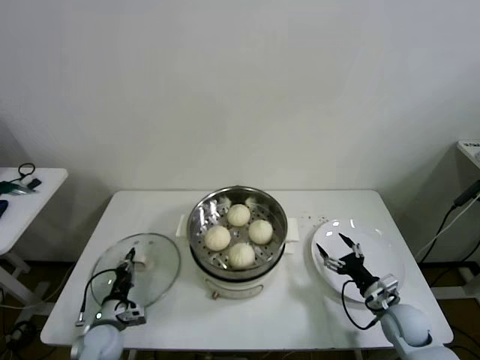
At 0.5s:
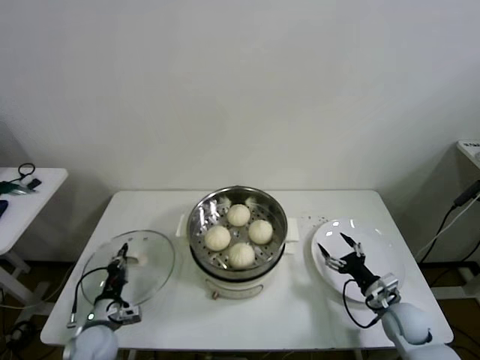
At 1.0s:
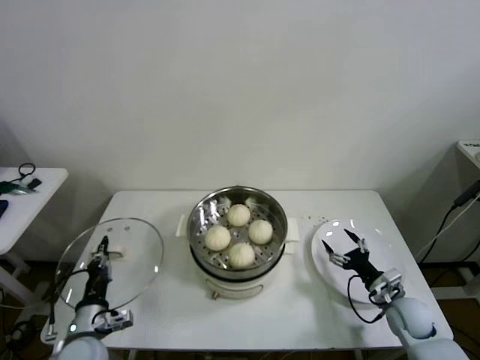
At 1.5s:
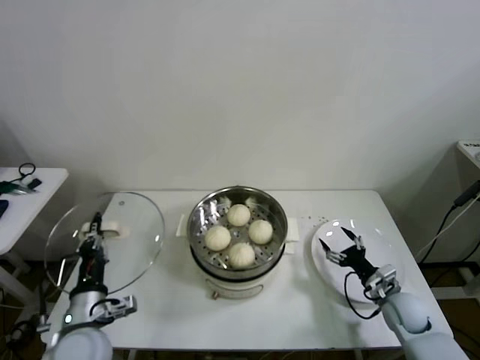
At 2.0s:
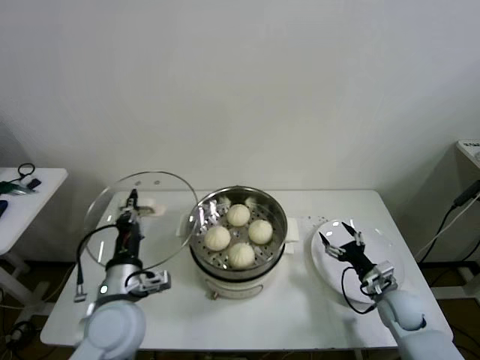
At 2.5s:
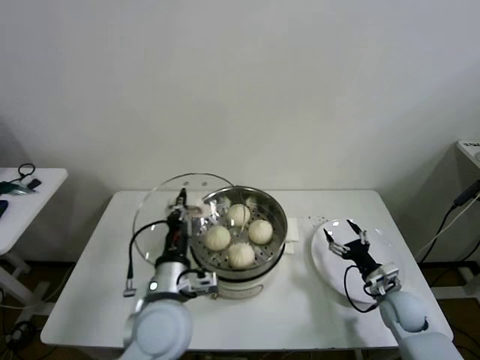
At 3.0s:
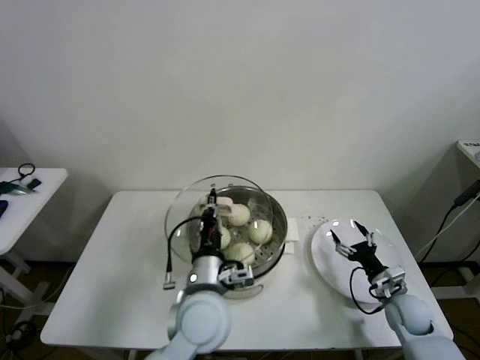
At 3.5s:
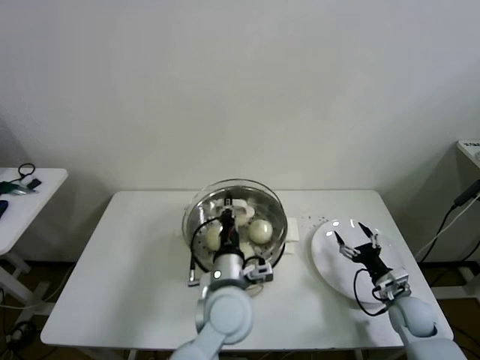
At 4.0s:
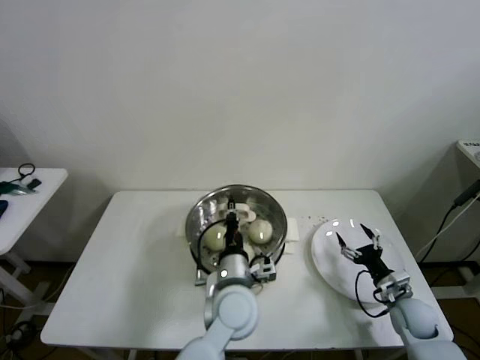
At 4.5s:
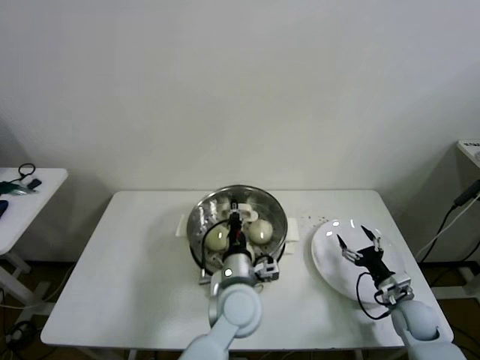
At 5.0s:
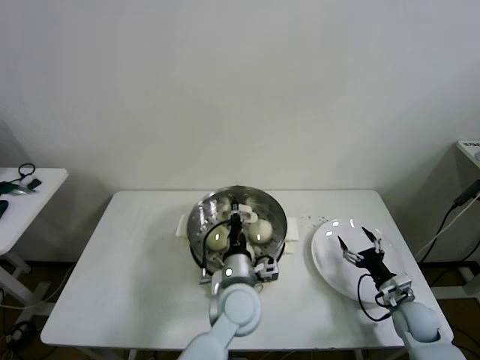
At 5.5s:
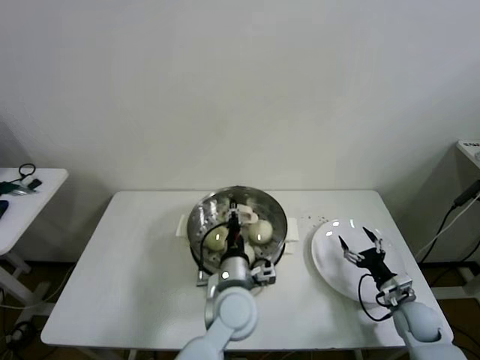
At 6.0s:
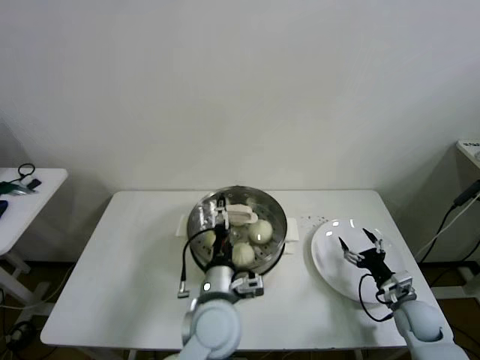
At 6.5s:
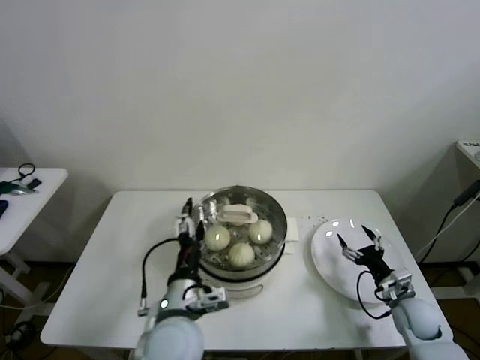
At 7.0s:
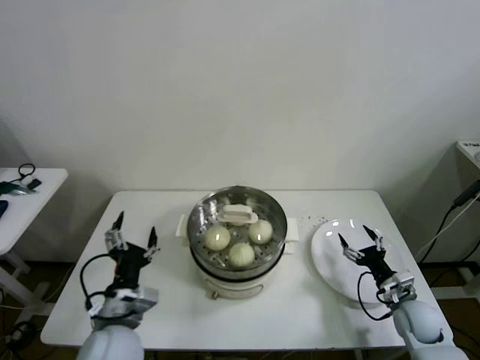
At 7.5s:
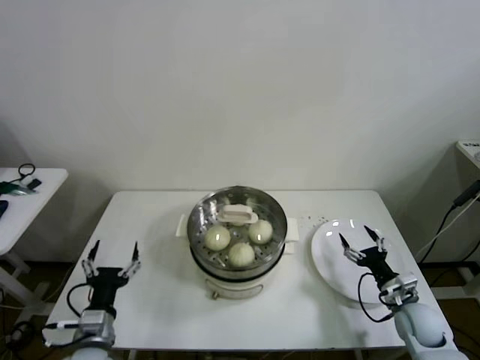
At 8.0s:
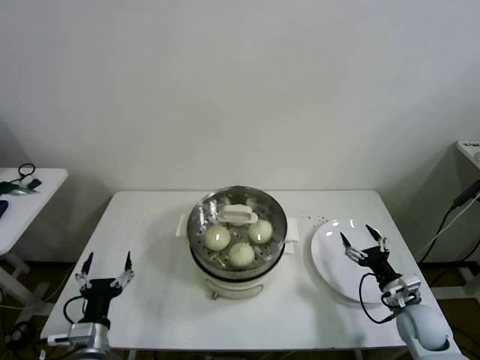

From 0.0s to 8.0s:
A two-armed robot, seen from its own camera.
Step, from 0.5s to 5.5s: Place the pot lid on the steamer with left gripper.
From 0.0s to 2.0s: The left gripper heads upward and to the right, covering about 25 cm.
From 2.0s to 4.0s: The left gripper heads to the right, covering approximately 20 cm.
From 4.0s to 6.0s: The left gripper opens.
From 6.0s to 8.0s: The left gripper is displaced to the left by approximately 25 cm.

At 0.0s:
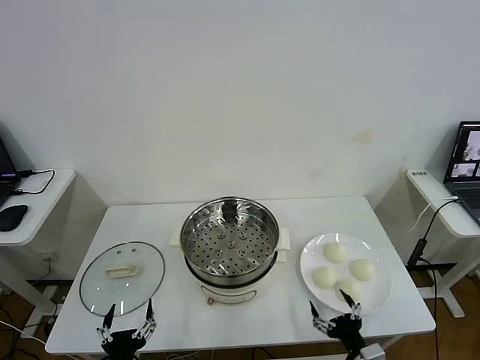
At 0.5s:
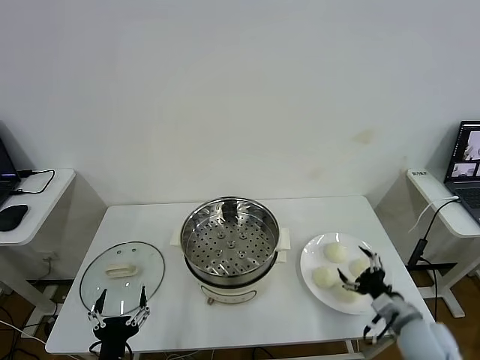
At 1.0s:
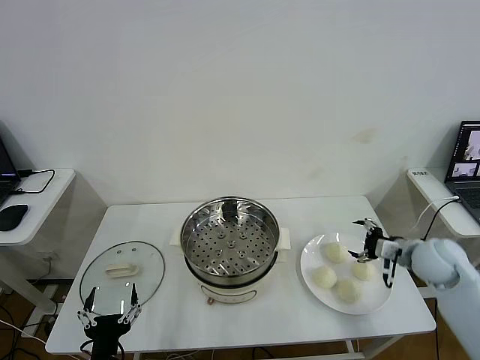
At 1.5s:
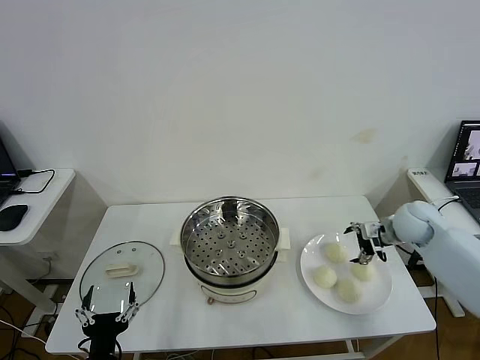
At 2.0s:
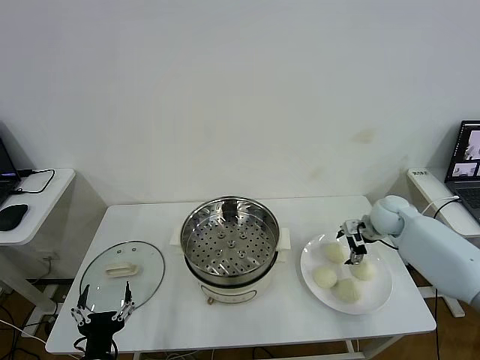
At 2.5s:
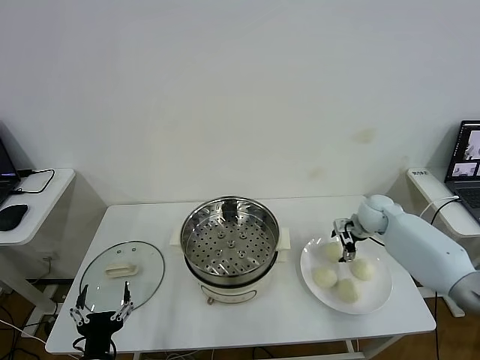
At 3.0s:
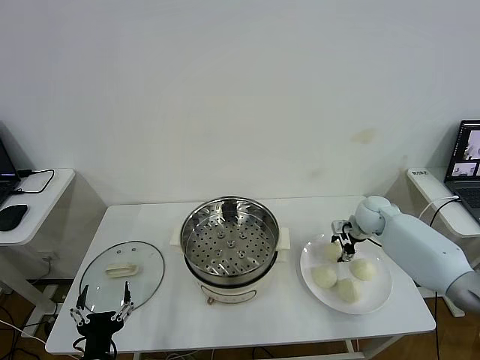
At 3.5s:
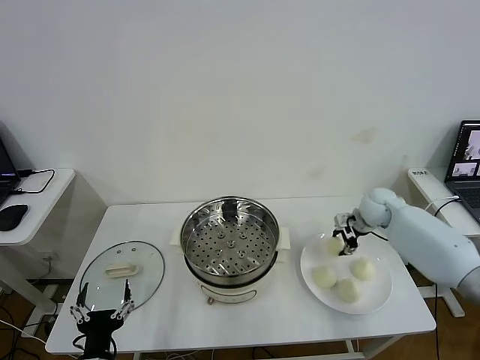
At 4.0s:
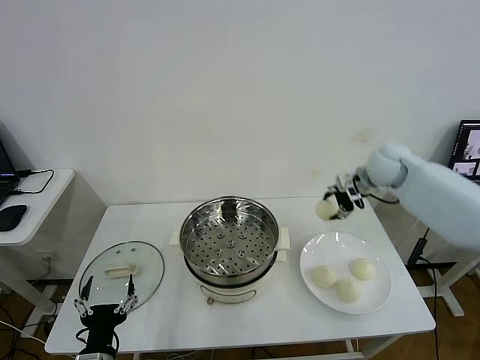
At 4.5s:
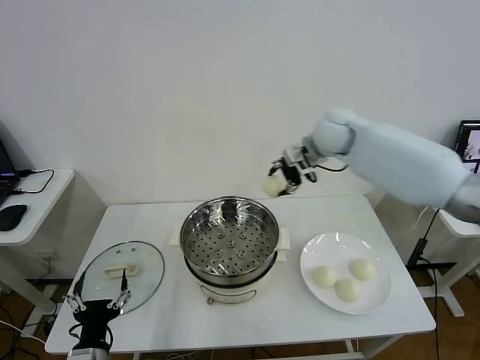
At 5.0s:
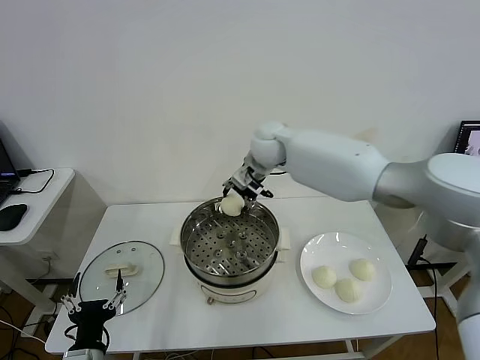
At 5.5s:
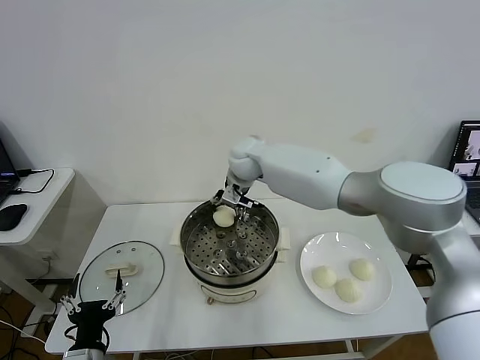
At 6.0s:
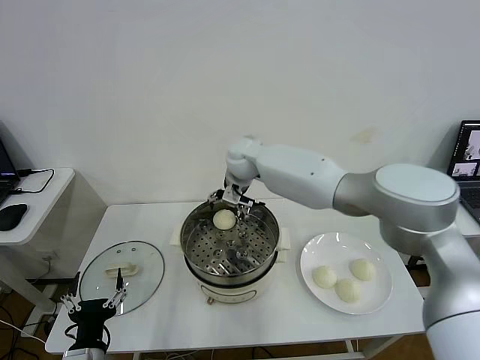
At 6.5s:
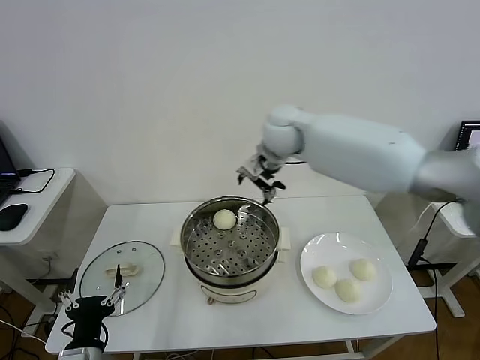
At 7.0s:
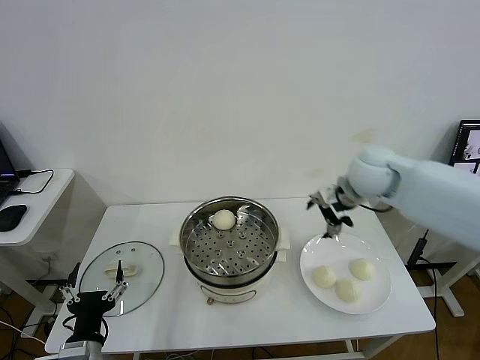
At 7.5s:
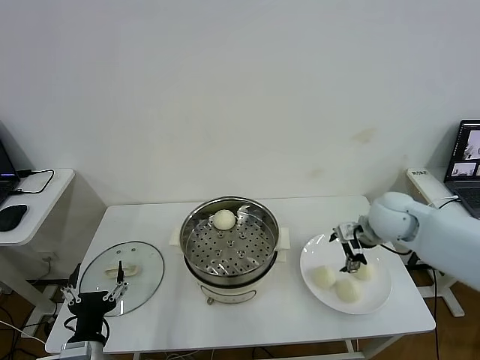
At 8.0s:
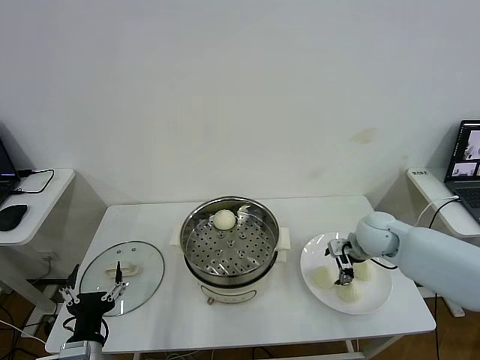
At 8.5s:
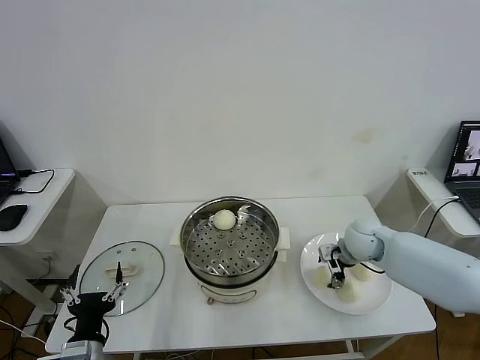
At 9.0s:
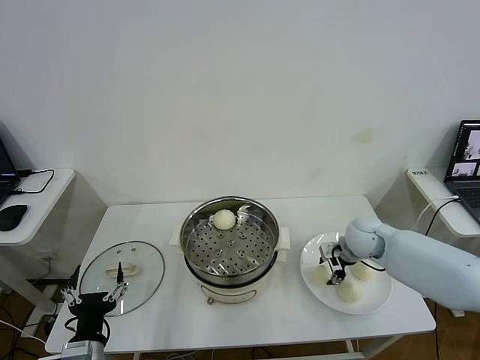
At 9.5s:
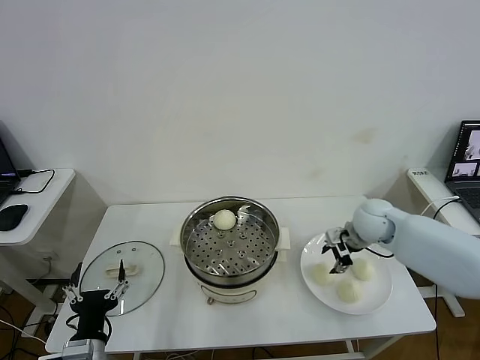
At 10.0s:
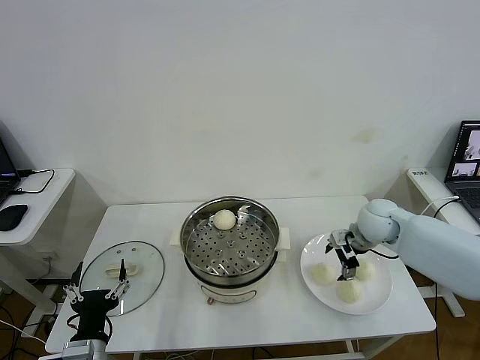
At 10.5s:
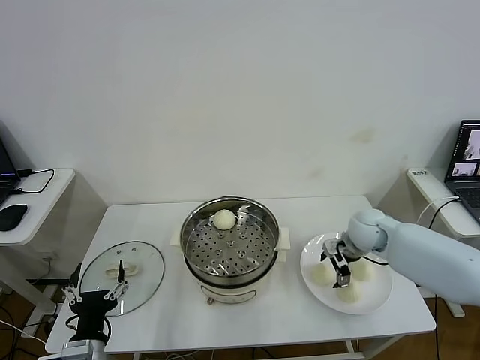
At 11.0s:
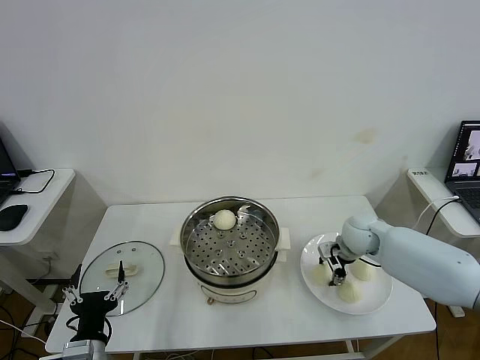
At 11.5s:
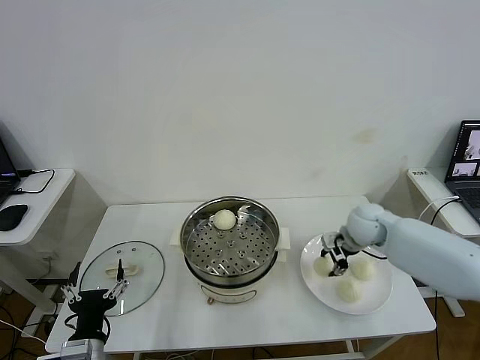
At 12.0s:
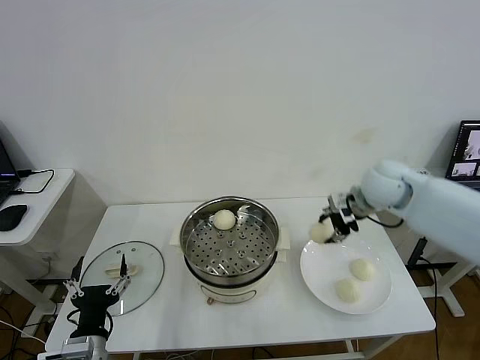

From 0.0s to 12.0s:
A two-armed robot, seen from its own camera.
Step, from 0.0s to 3.0s: Grasp the baozi in the plate with right gripper.
Step, from 3.5s to 5.5s: Place the baozi on the steamer with right gripper.
Step, from 6.0s to 11.0s: Grasp the baozi in the plate with right gripper.
From 2.0s to 4.0s: The right gripper travels upward by some 15 cm, and closes up.
From 4.0s to 6.0s: The right gripper is displaced to the left by about 30 cm, and opens its fingers.
From 6.0s to 8.0s: The right gripper moves to the right, downward and backward, approximately 35 cm.
From 8.0s to 10.0s: The right gripper closes and opens again.
From 10.0s to 12.0s: The right gripper goes some 15 cm upward, and closes its fingers.

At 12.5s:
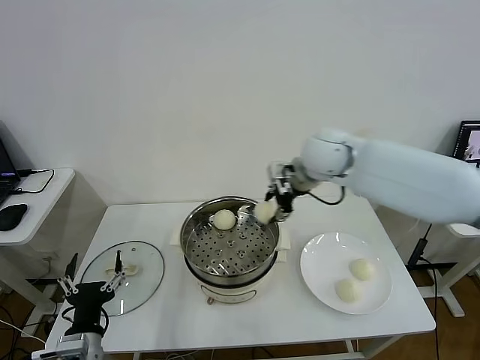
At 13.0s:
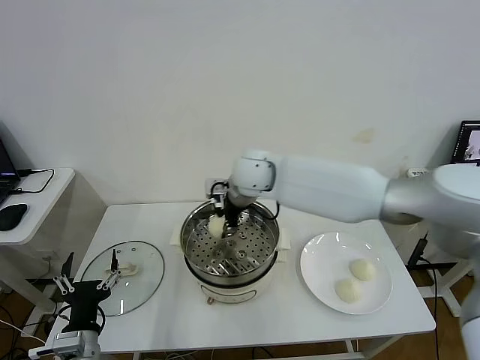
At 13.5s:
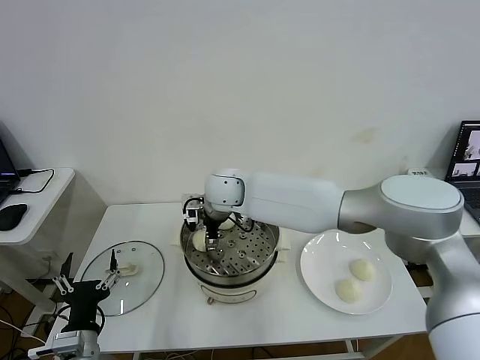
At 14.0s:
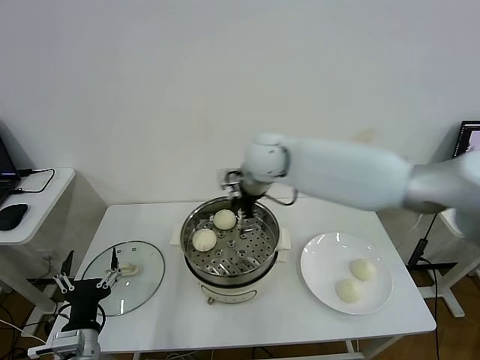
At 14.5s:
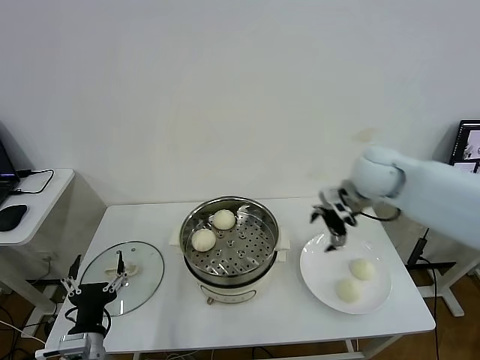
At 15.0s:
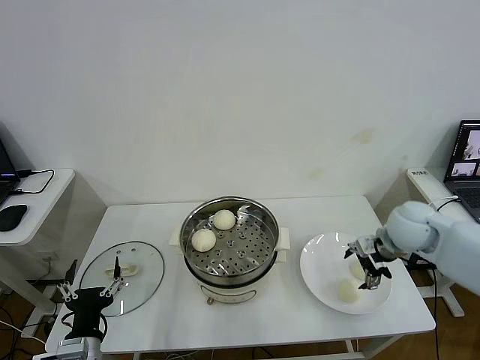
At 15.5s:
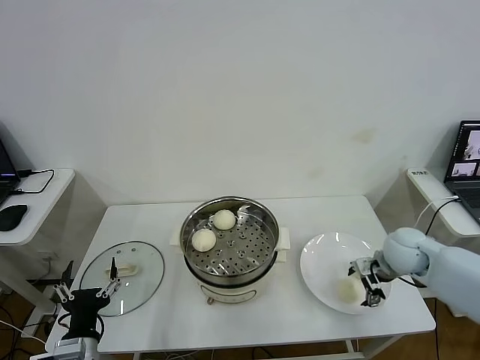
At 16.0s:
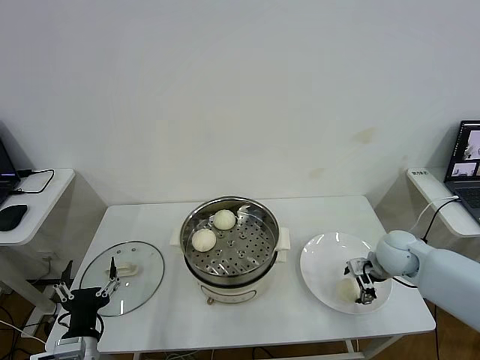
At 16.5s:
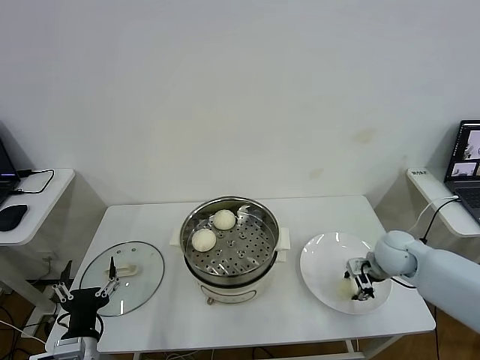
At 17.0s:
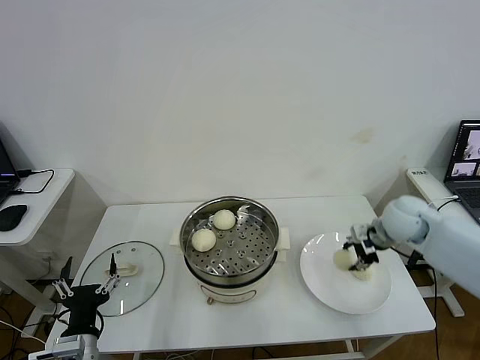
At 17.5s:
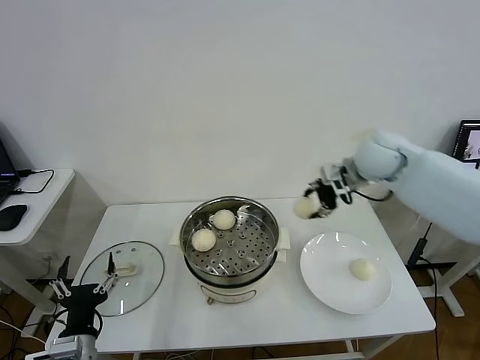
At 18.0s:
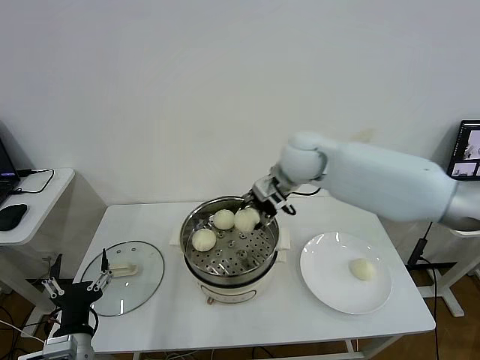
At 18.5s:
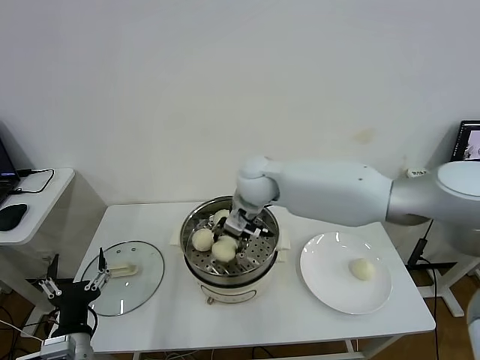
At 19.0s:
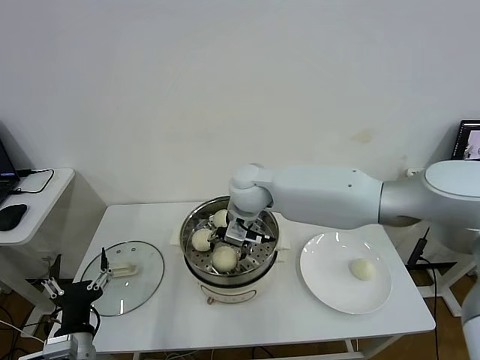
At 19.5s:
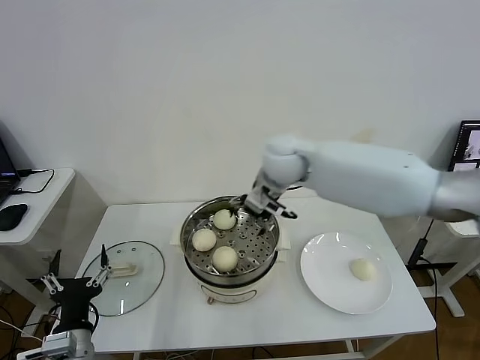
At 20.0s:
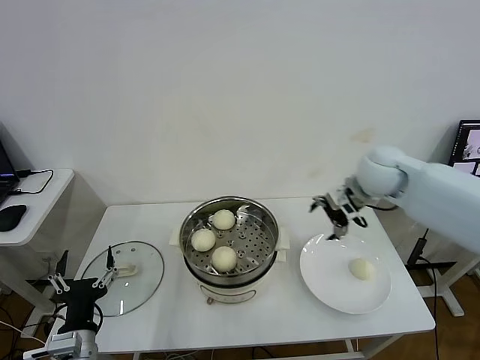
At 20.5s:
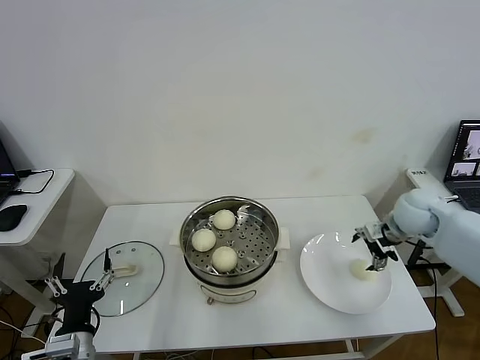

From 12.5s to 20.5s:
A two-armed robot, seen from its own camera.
Step, from 14.0s to 16.0s: Grasp the baozi in the plate with right gripper.
Step, from 16.5s to 19.0s: Place the baozi on the steamer with right gripper.
From 12.5s to 14.5s: The right gripper heads to the right, covering some 15 cm, and opens up.
From 14.5s to 16.5s: The right gripper heads downward and to the right, covering approximately 20 cm, and closes its fingers.
From 16.5s to 18.5s: The right gripper heads to the left and upward, covering roughly 35 cm.
From 18.5s to 20.5s: The right gripper travels to the right by roughly 35 cm, and opens.
